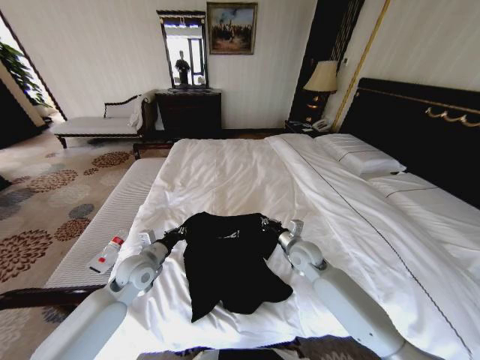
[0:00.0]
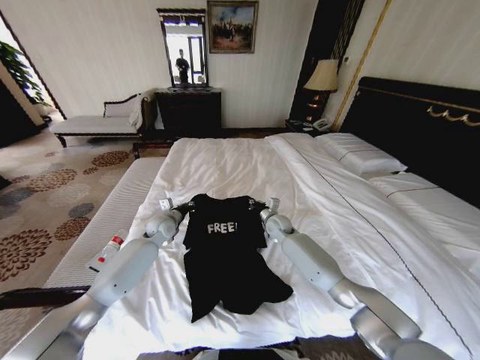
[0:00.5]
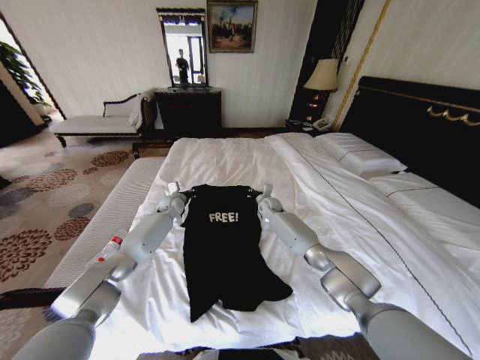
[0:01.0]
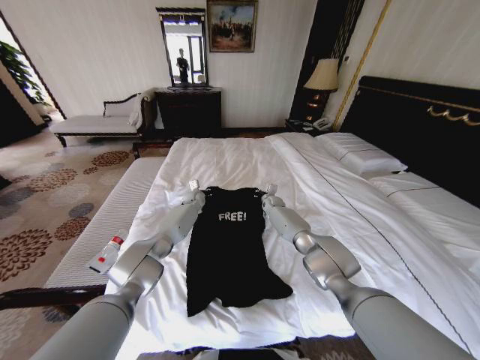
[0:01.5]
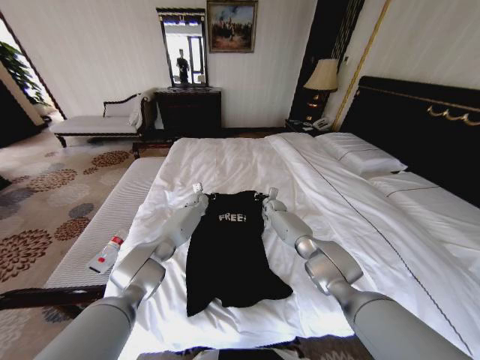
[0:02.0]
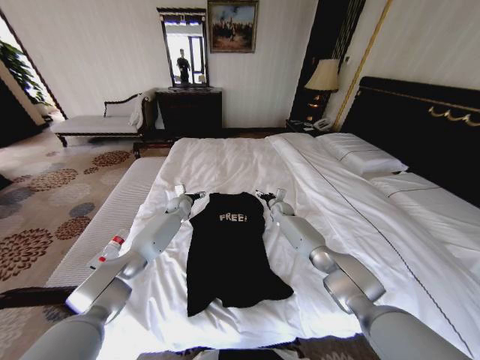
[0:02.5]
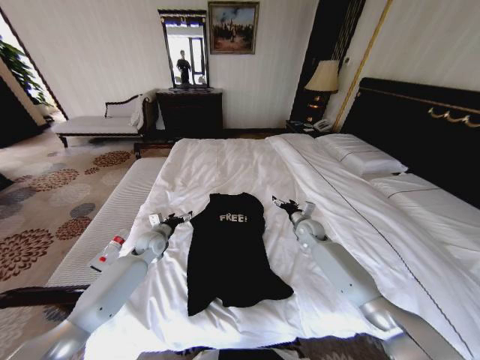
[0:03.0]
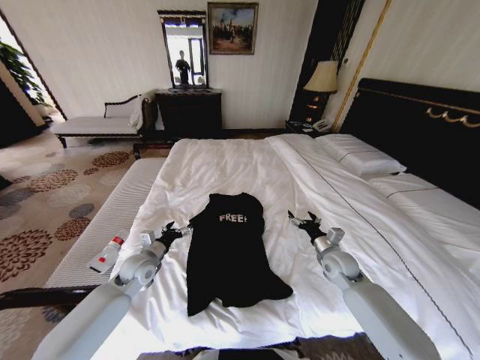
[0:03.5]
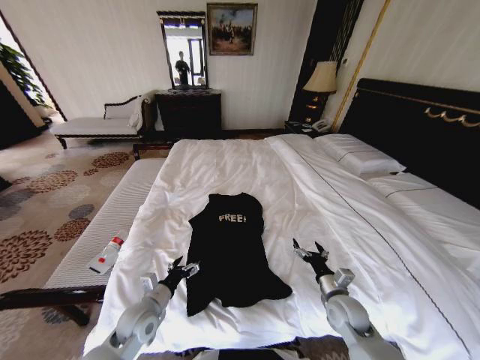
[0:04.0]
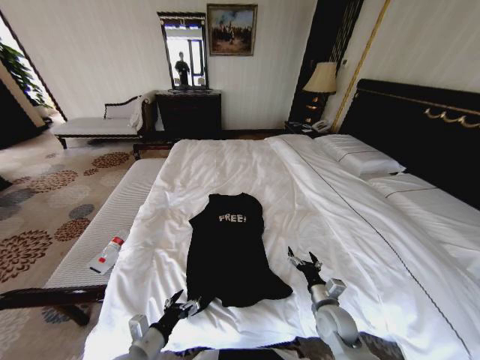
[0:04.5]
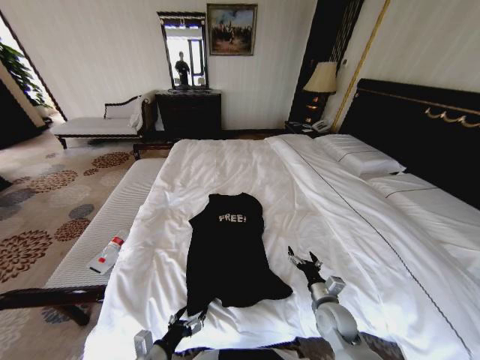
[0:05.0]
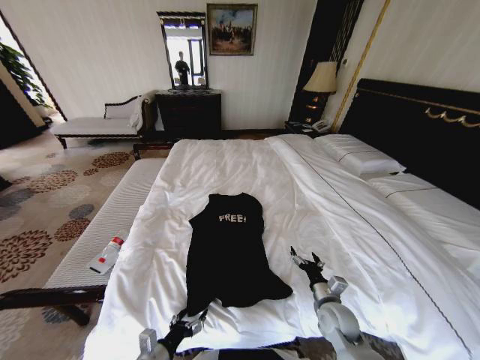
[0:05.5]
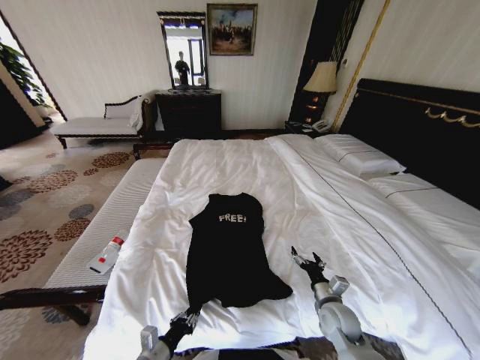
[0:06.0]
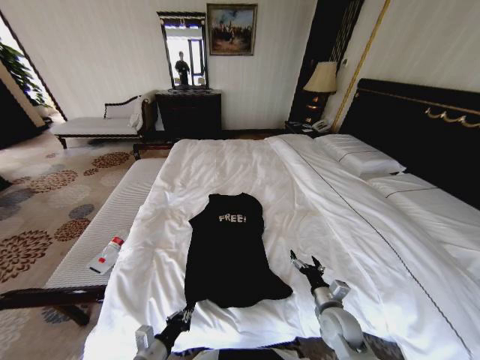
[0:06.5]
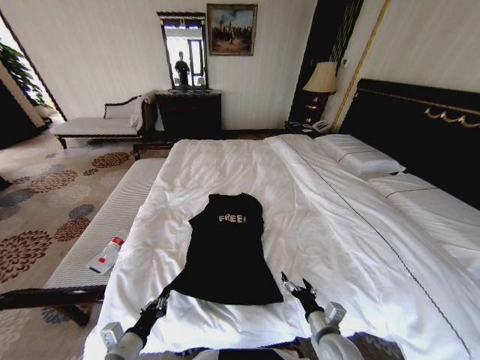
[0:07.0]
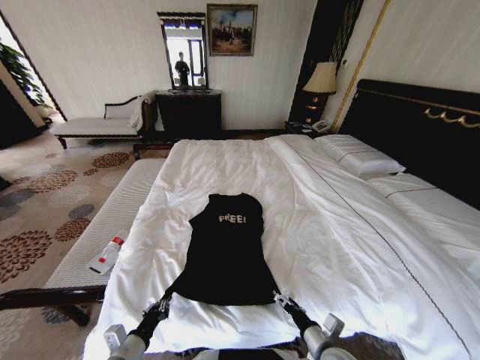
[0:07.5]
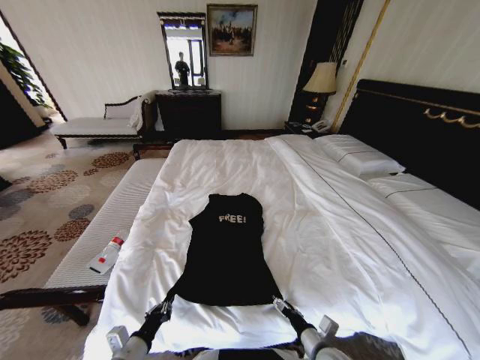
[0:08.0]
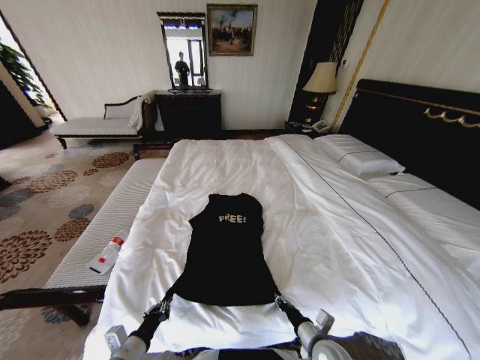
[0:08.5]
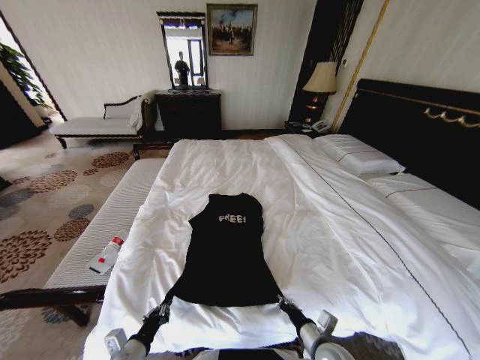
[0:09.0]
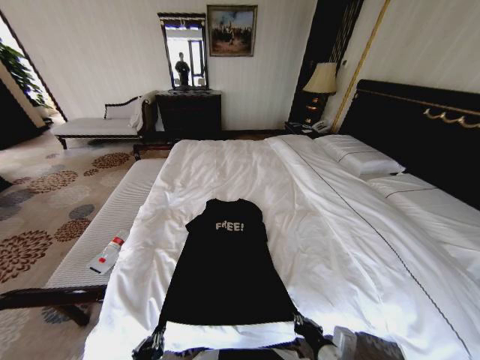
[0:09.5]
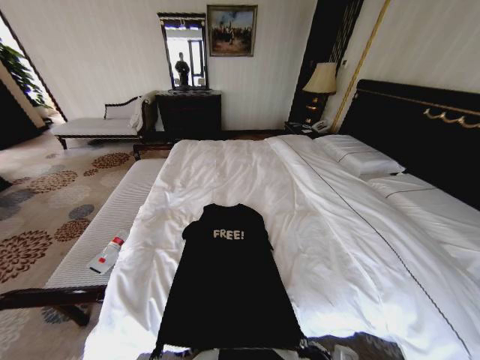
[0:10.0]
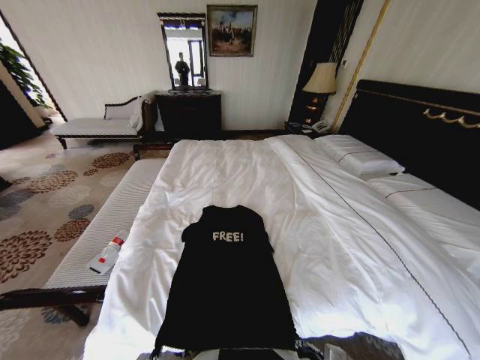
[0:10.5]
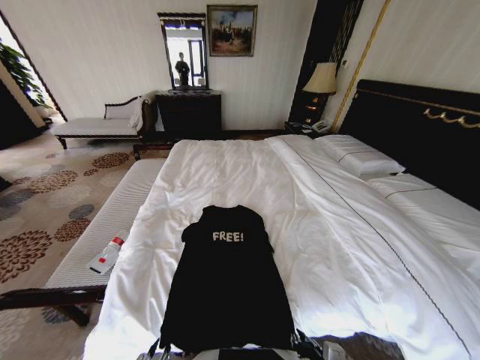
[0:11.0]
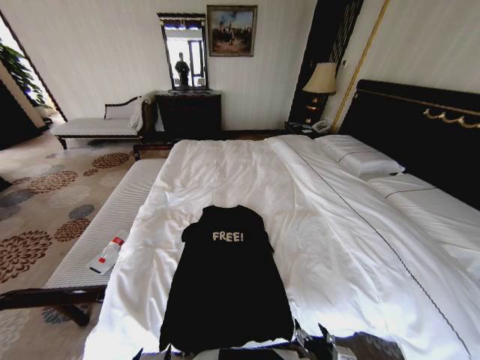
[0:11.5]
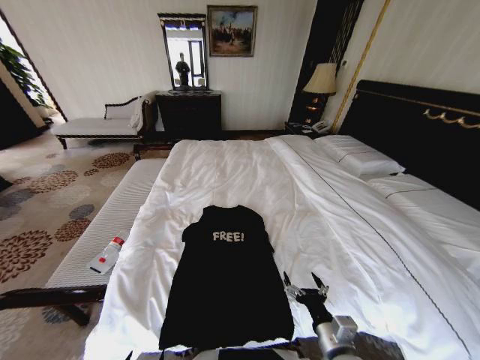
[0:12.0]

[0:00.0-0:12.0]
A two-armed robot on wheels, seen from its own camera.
Task of the whole recording: Fold the clothes on the bed.
0:00.0 to 0:02.0: Both grippers move forward, some 30 cm.
0:02.0 to 0:04.0: Both grippers move backward, roughly 40 cm. The right gripper opens. The left gripper opens.
0:04.0 to 0:06.0: The left gripper heads backward, covering approximately 15 cm, and closes.
0:06.0 to 0:08.0: The left gripper moves approximately 5 cm. The right gripper heads backward, covering roughly 10 cm.
0:08.0 to 0:10.0: The left gripper is displaced backward by about 15 cm. The right gripper is displaced upward and backward by approximately 10 cm, and closes its fingers.
0:10.0 to 0:12.0: The right gripper opens its fingers; the left gripper moves roughly 5 cm, and opens.

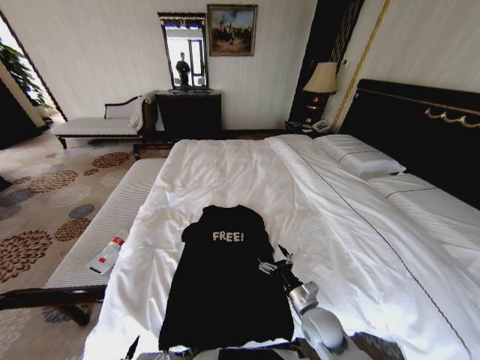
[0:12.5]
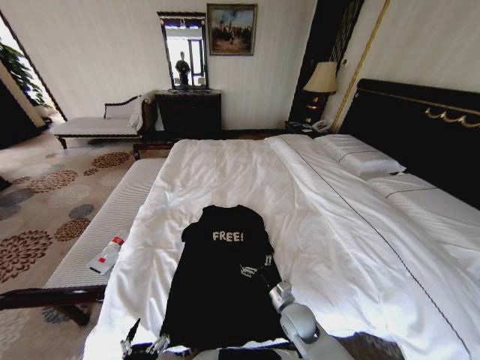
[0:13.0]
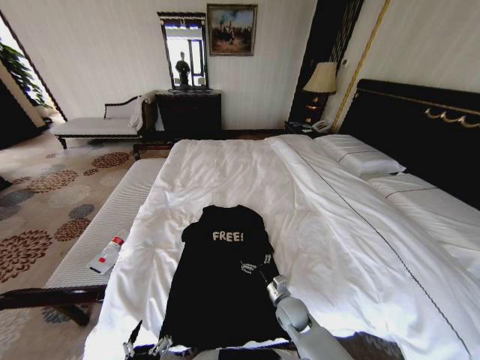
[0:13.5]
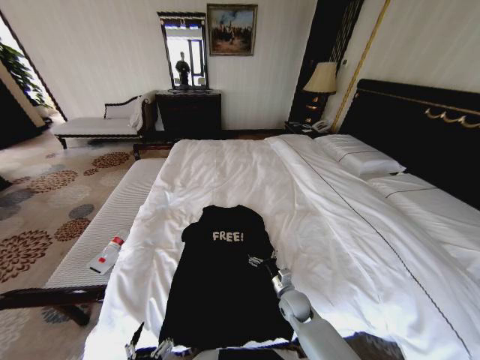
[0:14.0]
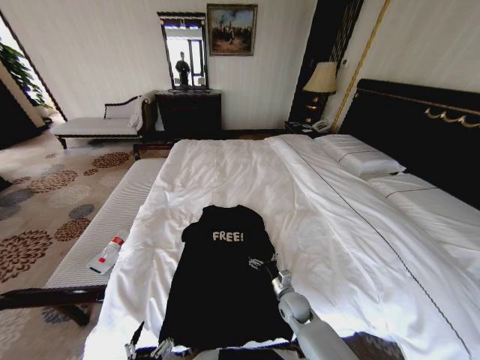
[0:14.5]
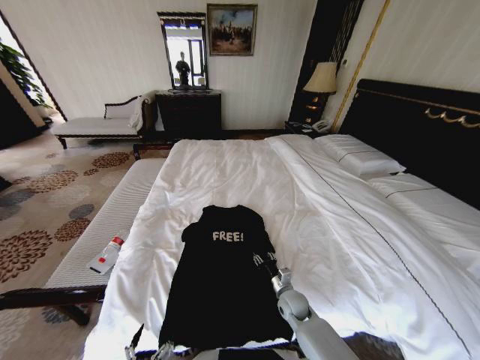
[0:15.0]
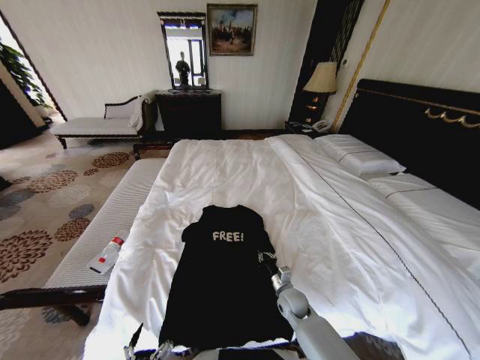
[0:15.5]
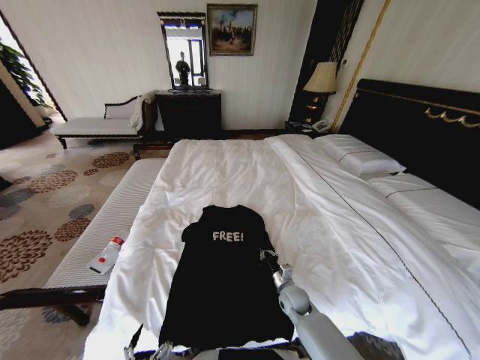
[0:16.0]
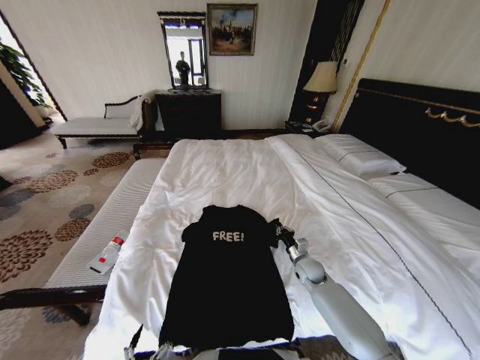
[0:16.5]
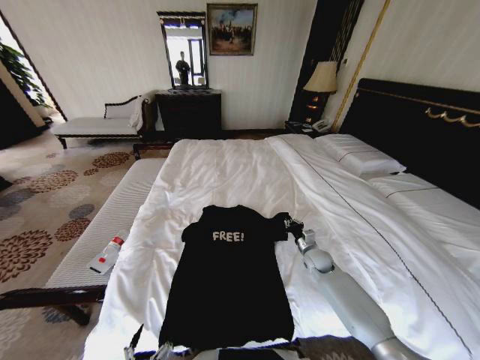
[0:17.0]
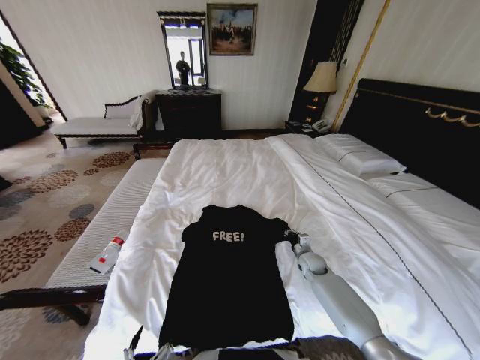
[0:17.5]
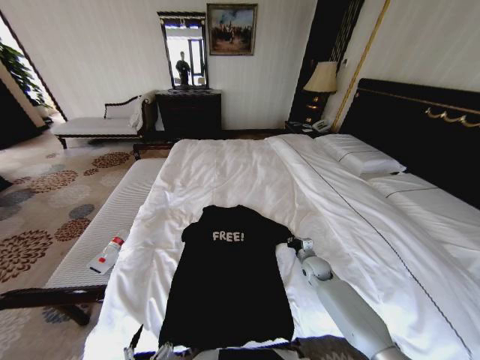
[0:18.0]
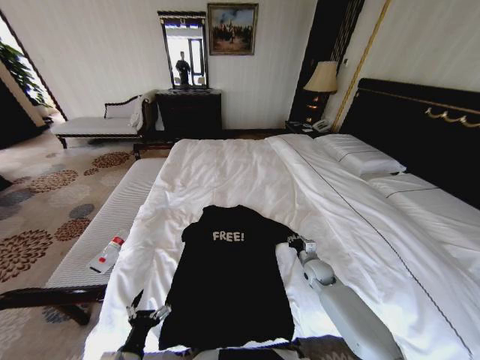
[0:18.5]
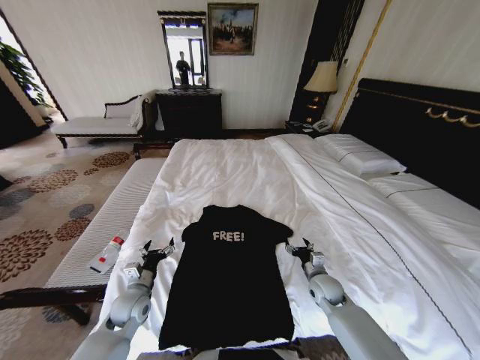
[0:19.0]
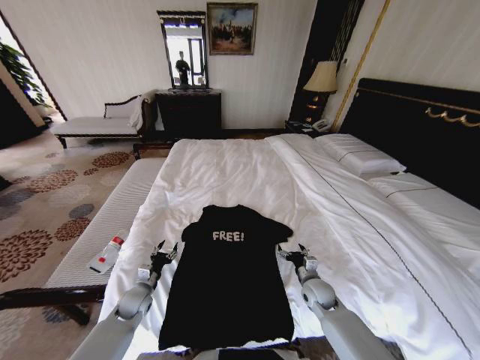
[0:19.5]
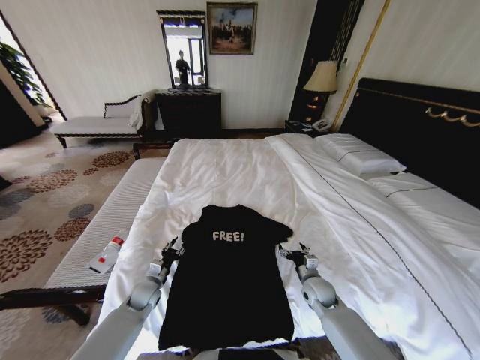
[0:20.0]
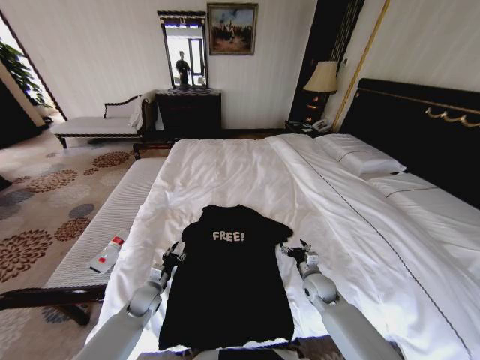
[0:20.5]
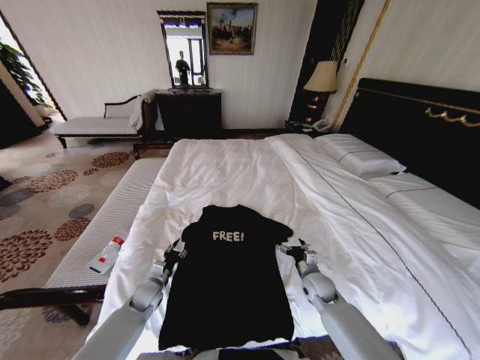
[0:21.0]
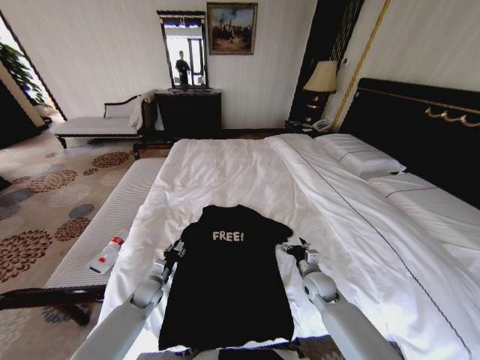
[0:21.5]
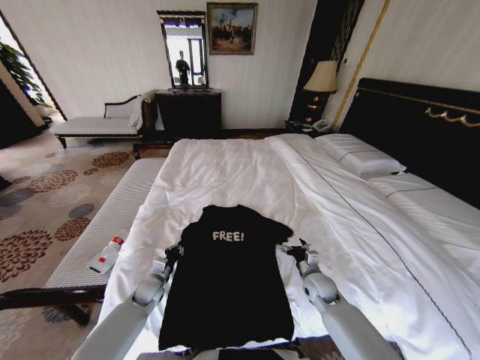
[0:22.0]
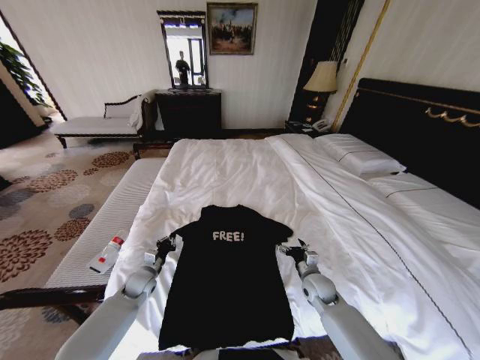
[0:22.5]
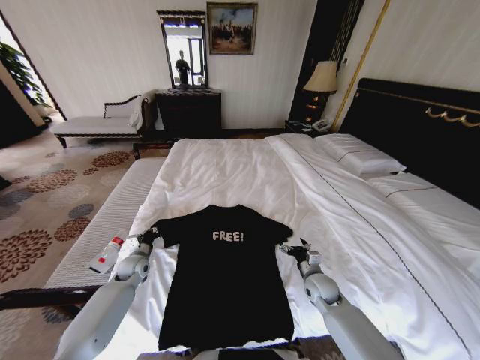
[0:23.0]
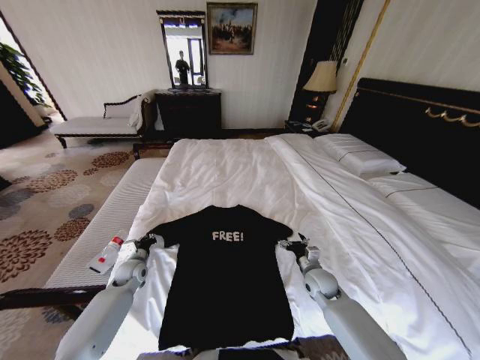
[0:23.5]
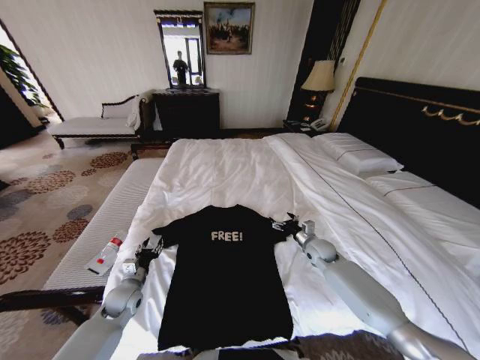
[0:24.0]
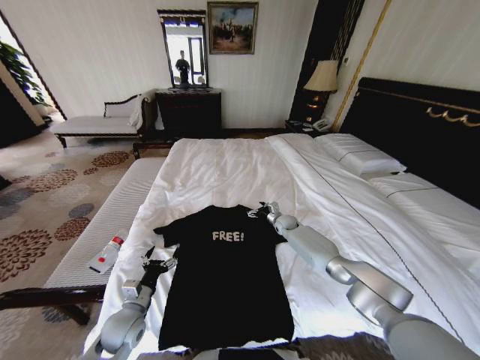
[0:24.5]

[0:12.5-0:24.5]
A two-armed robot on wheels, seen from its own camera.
Task of the whole recording: Fold the clothes on the bed.
0:12.5 to 0:14.5: The right gripper is displaced downward and forward by approximately 10 cm.
0:14.5 to 0:16.5: The right gripper shifts roughly 15 cm forward, to the right and upward, and closes up.
0:16.5 to 0:18.5: The left gripper shifts approximately 10 cm forward.
0:18.5 to 0:20.5: The right gripper moves backward, roughly 5 cm, and opens its fingers; the left gripper moves forward, roughly 25 cm, and closes.
0:20.5 to 0:22.5: The left gripper moves about 5 cm, and closes its fingers.
0:22.5 to 0:24.5: The left gripper heads backward and upward, covering some 15 cm, and opens its fingers, while the right gripper is displaced forward by some 25 cm.

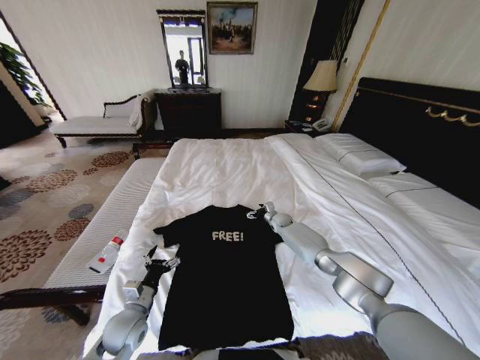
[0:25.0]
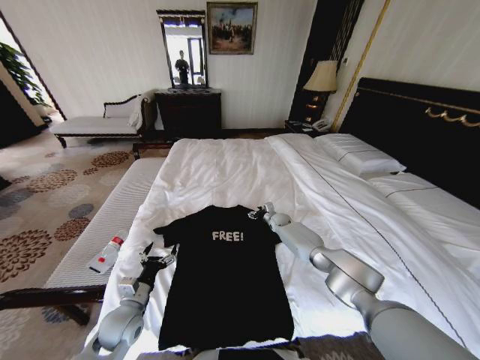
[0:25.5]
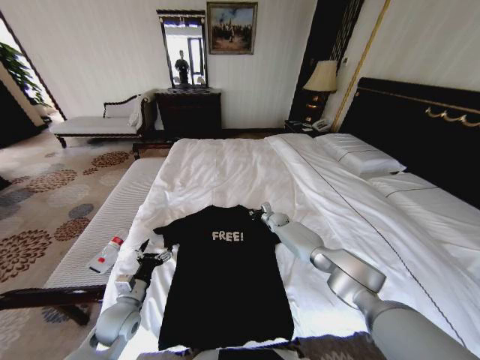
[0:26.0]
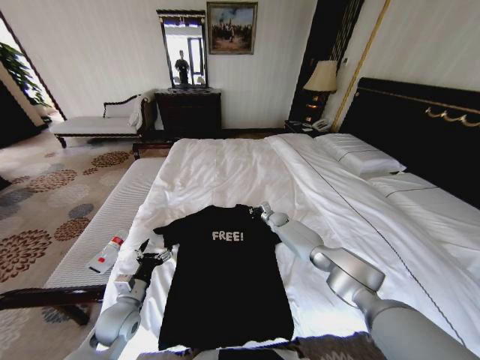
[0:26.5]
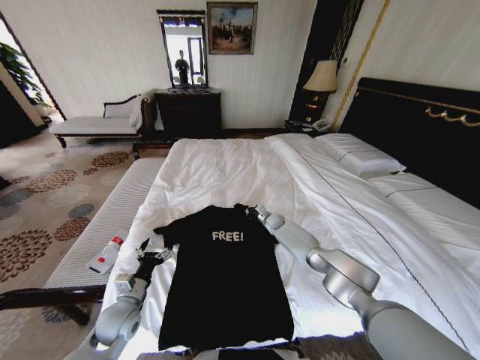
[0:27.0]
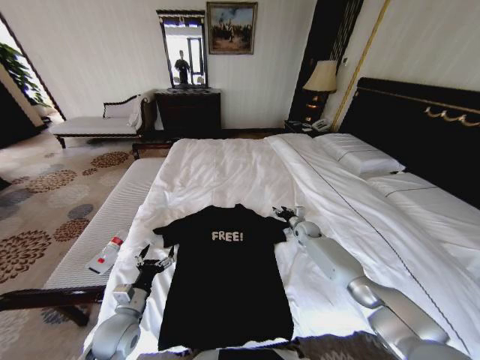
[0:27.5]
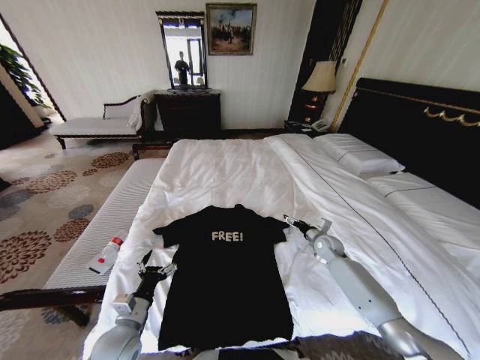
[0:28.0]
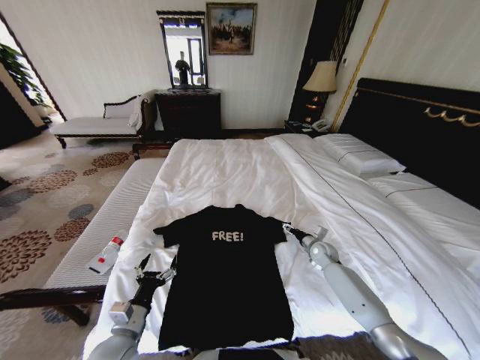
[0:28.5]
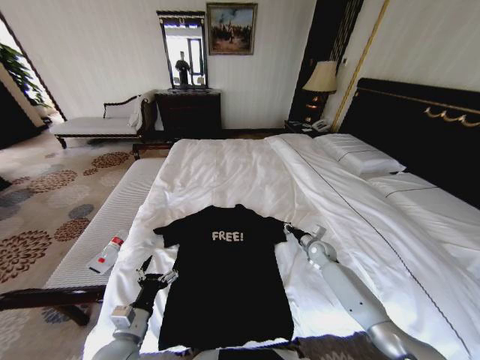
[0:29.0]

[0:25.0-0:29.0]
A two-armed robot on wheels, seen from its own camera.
Task of the whole recording: Fold the clothes on the bed.
0:25.0 to 0:27.0: The right gripper closes its fingers.
0:27.0 to 0:29.0: The right gripper goes roughly 20 cm backward and to the right, and opens up. Meanwhile the left gripper shifts approximately 10 cm backward.
